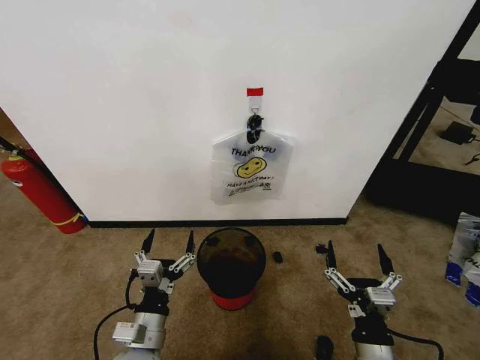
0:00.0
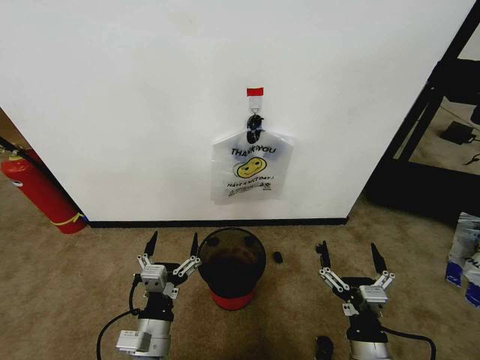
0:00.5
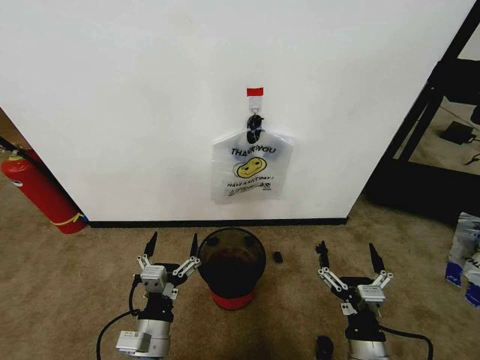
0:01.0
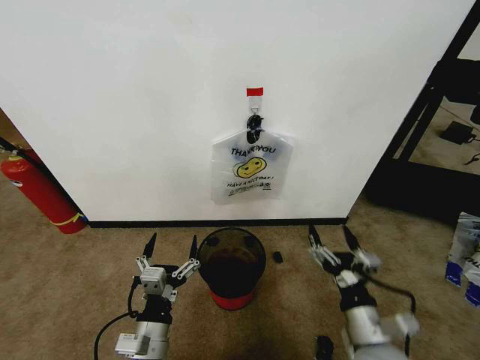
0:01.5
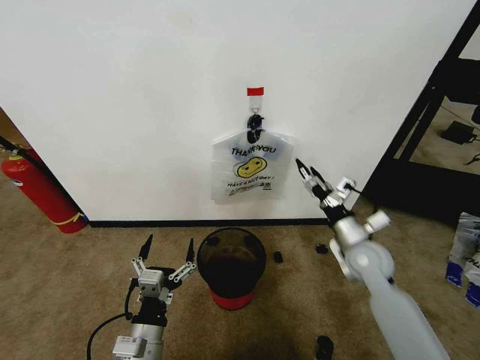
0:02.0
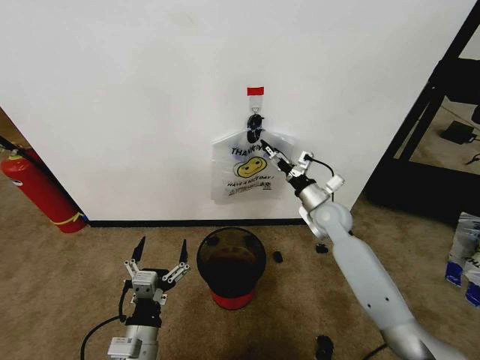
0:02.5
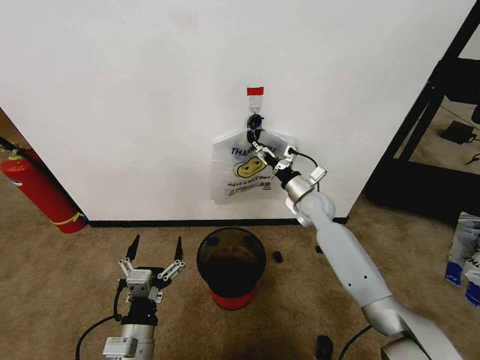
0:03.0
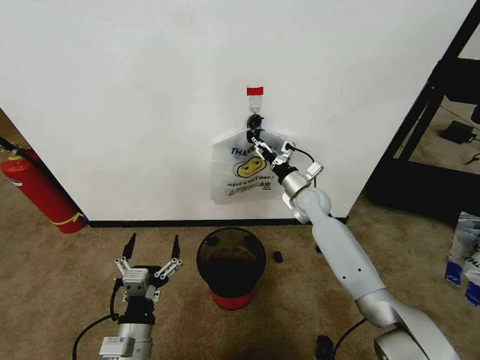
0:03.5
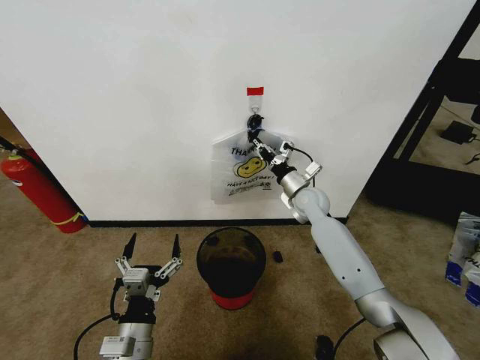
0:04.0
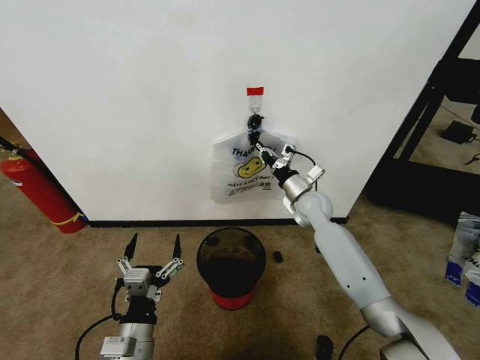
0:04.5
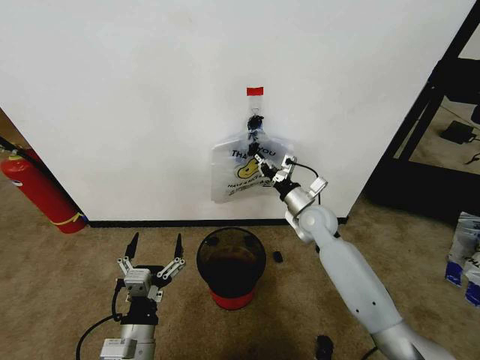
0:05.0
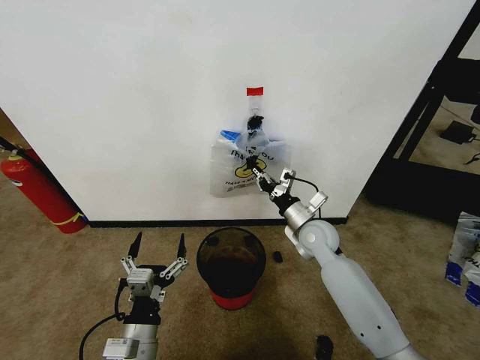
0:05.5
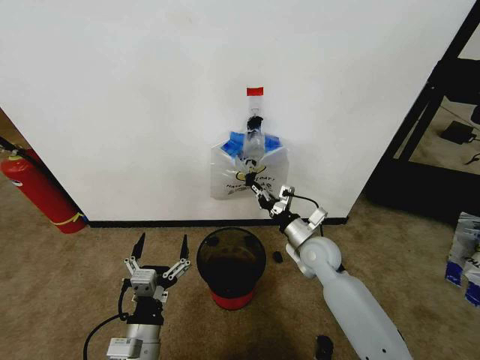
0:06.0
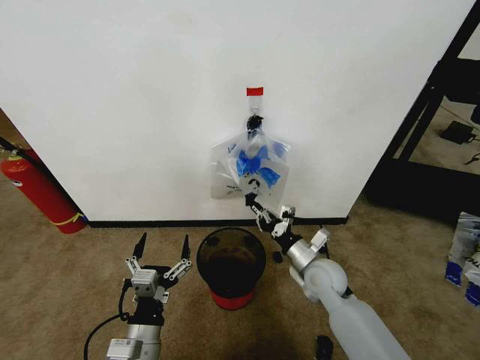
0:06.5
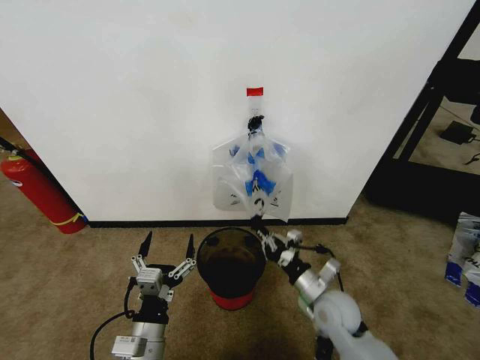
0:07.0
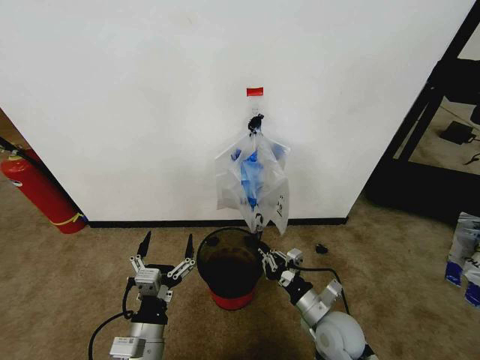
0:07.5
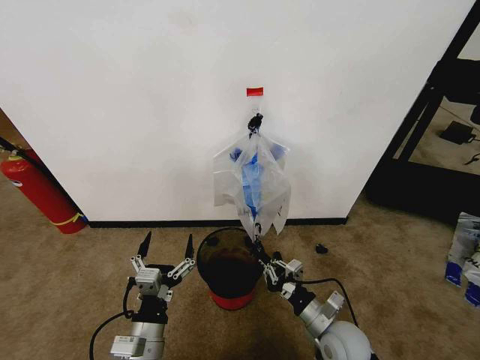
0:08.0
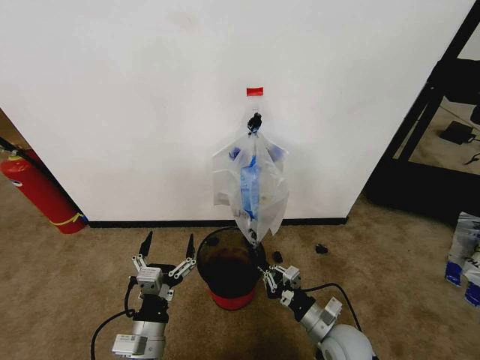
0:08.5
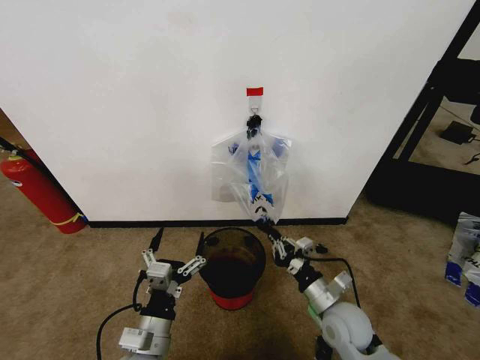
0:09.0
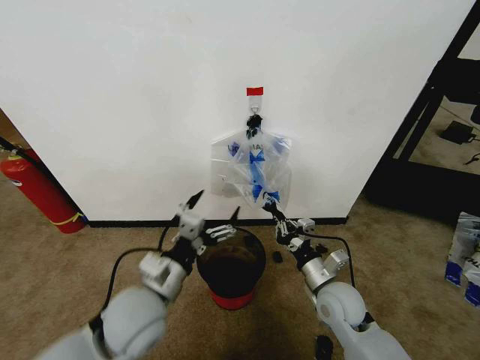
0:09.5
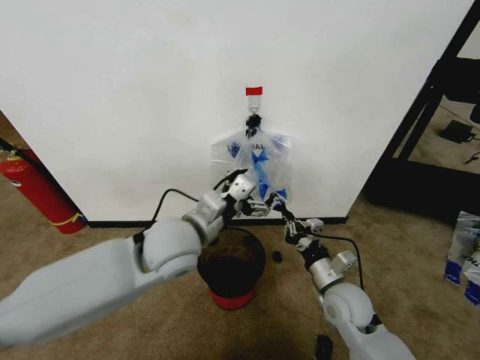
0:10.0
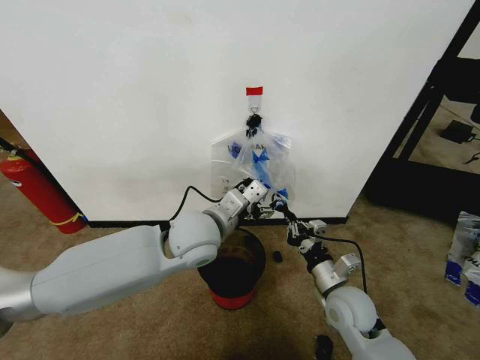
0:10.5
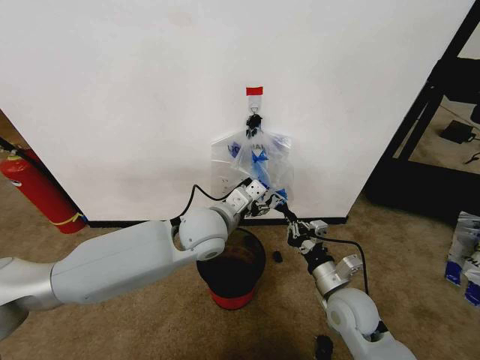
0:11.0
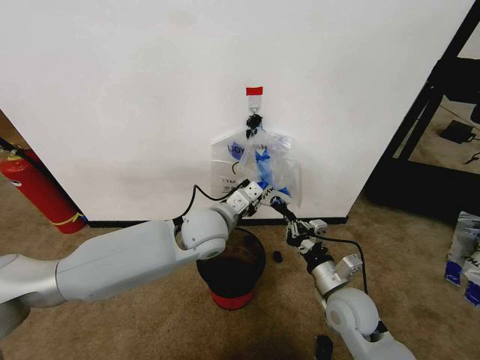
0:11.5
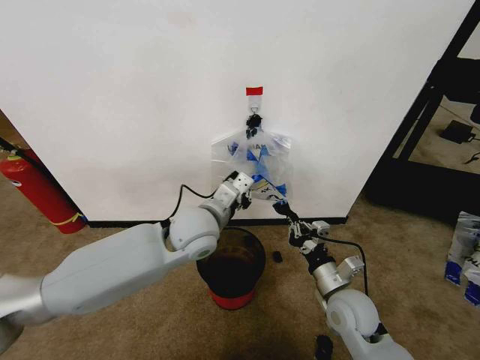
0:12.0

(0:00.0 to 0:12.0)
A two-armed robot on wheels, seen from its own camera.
Task of the whole recording: Pick up the garbage bag from the wall and place it over the trash bin.
0:02.0 - 0:04.0: The right gripper travels forward and to the left by approximately 20 cm, and closes its fingers.
0:04.0 - 0:06.0: The right gripper shifts about 15 cm backward.
0:06.0 - 0:08.0: The right gripper moves backward and downward, some 20 cm.
0:08.0 - 0:10.0: The left gripper is displaced upward and forward by approximately 25 cm. The right gripper is displaced upward and forward by some 10 cm.
0:10.0 - 0:12.0: The left gripper changes place by about 5 cm, and closes up.

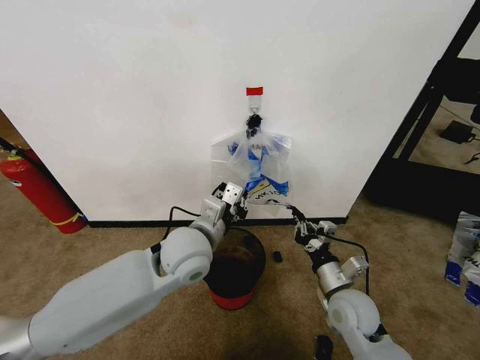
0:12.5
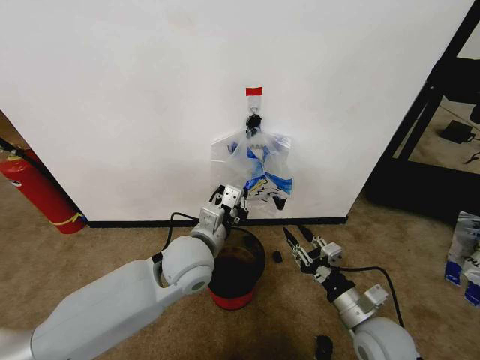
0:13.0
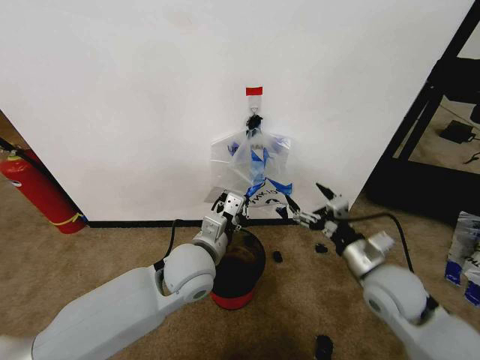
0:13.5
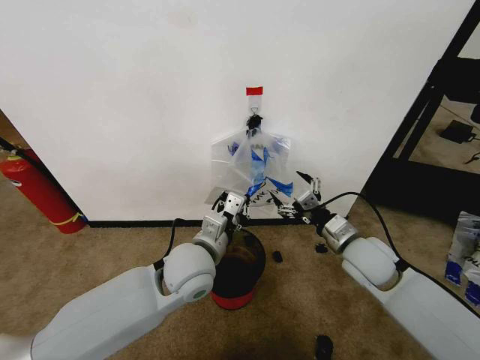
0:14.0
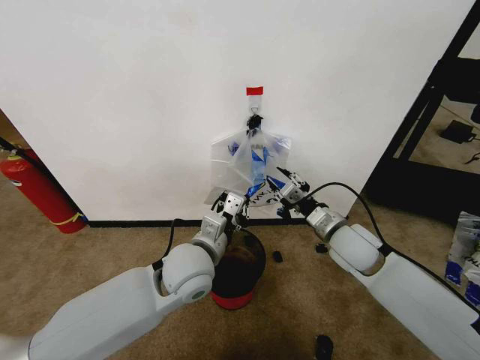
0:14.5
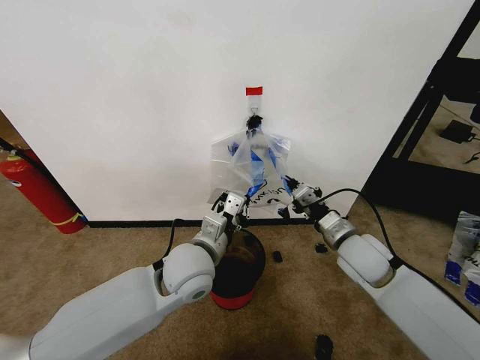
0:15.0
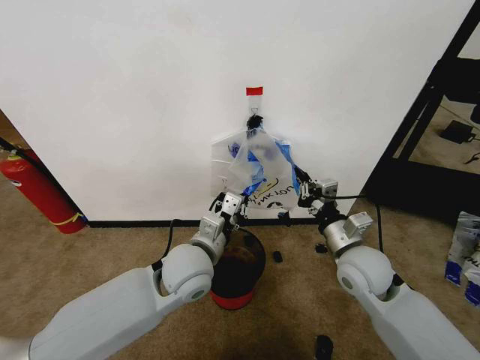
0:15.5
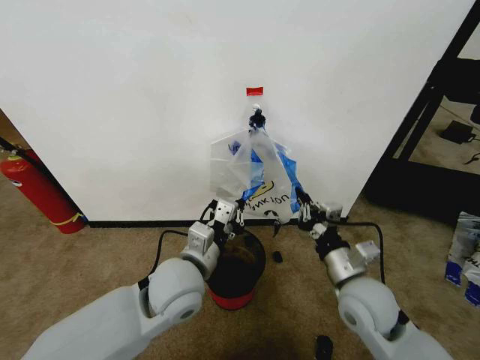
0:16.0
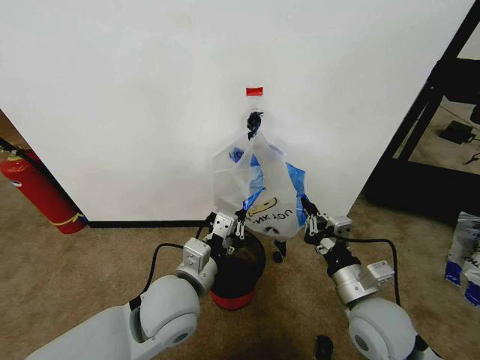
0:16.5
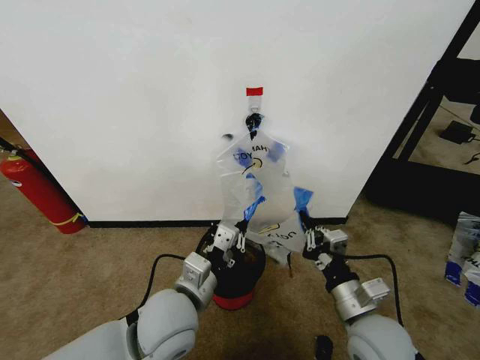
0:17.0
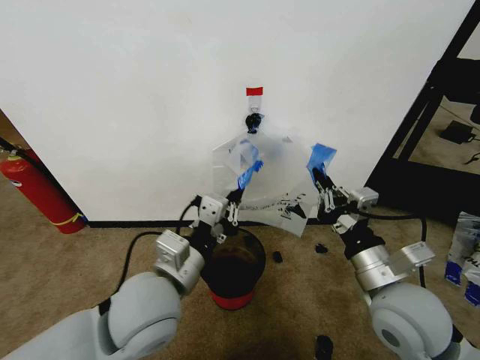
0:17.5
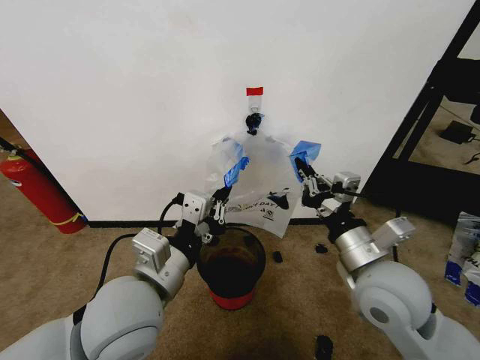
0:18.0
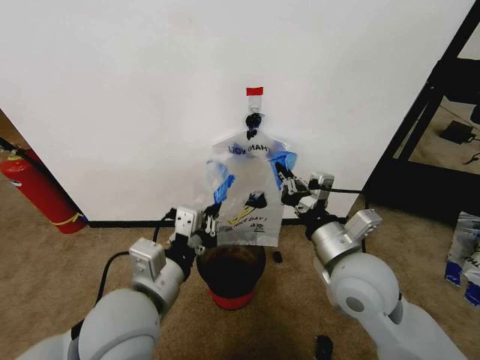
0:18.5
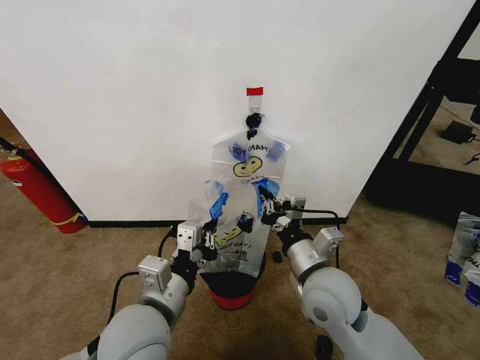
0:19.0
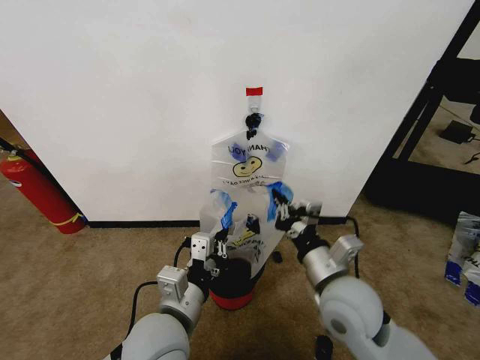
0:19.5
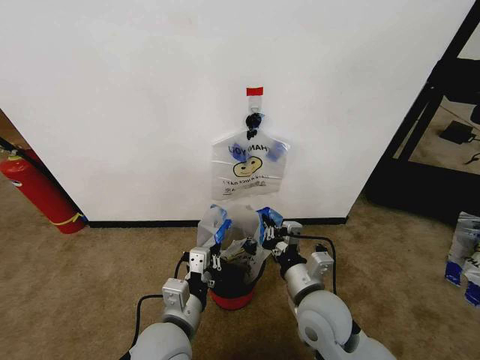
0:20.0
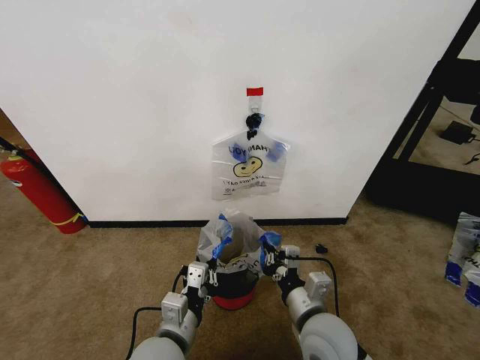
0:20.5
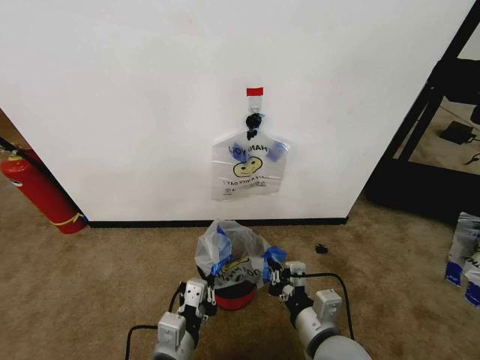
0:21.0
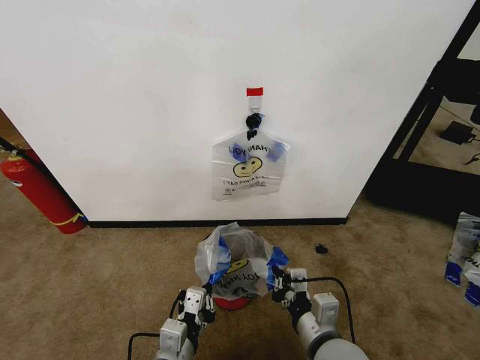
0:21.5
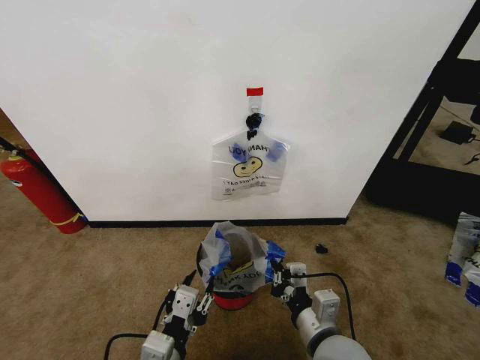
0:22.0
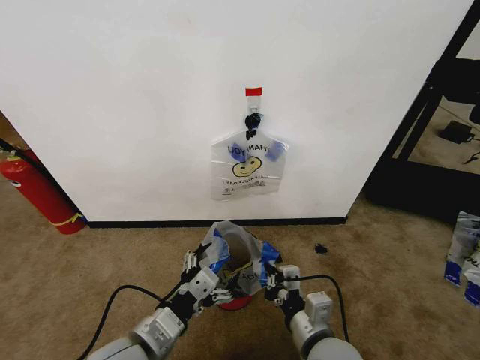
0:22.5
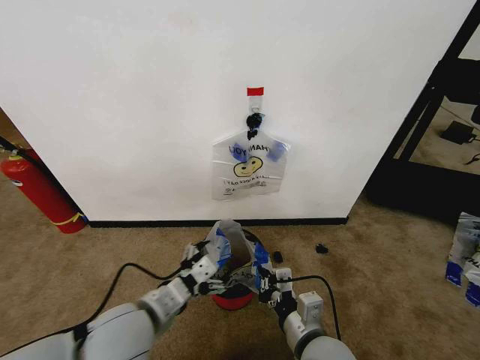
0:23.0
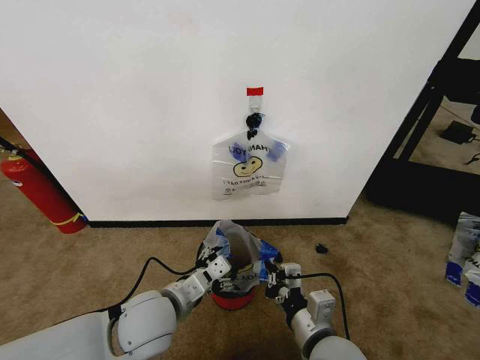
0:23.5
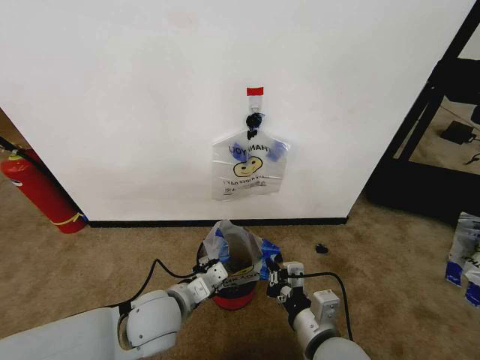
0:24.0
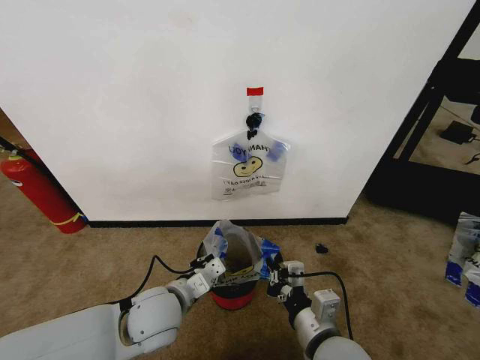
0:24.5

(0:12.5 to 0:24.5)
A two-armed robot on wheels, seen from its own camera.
Task of the whole recording: Pick up the garbage bag from the wall and place it over the trash bin.
0:12.5 - 0:14.5: The right gripper goes some 15 cm forward and upward, and opens its fingers.
0:14.5 - 0:16.5: The right gripper is displaced backward by about 15 cm, and closes its fingers. The left gripper heads backward, covering about 5 cm.
0:16.5 - 0:18.5: Both grippers travel together upward, approximately 5 cm.
0:18.5 - 0:20.5: The grippers both shift downward by roughly 15 cm.
0:20.5 - 0:22.5: The left gripper is displaced upward by approximately 5 cm, and opens.
0:22.5 - 0:24.5: The left gripper goes approximately 10 cm forward, and closes.

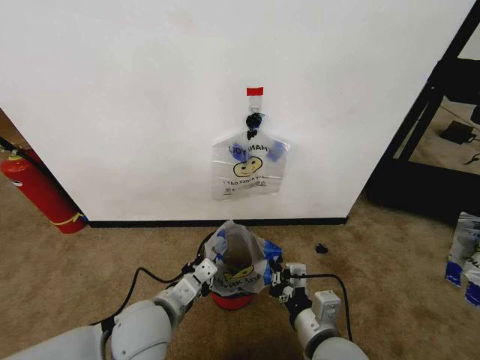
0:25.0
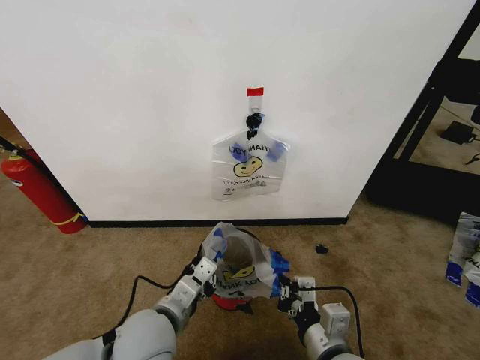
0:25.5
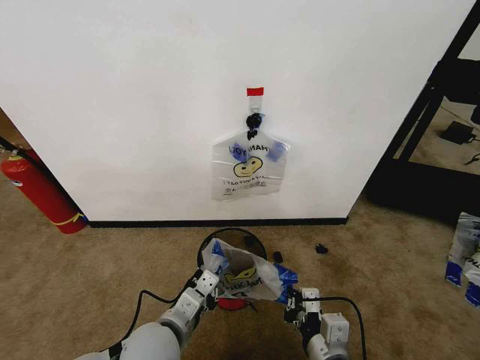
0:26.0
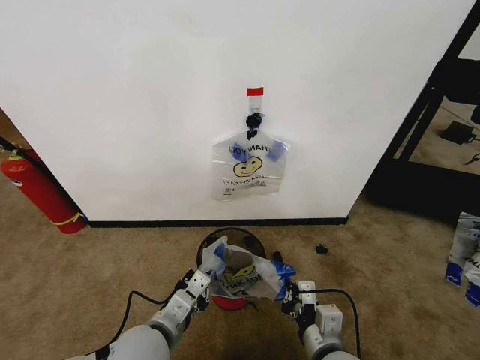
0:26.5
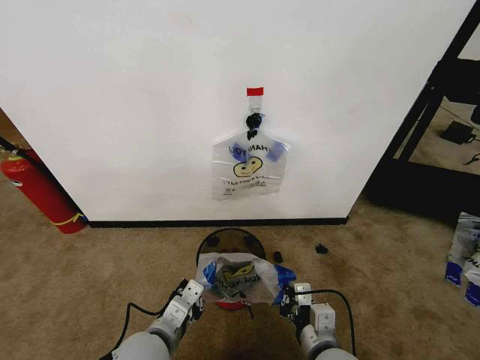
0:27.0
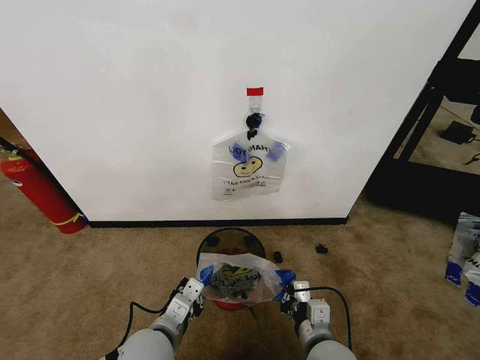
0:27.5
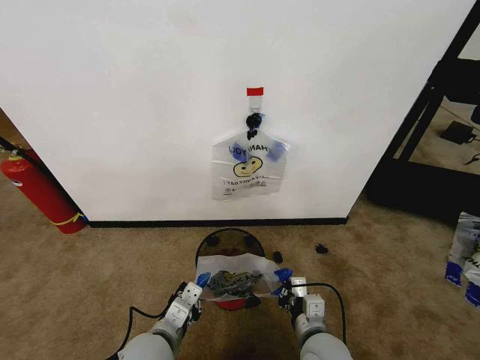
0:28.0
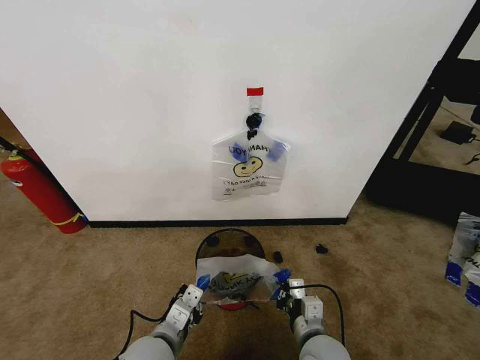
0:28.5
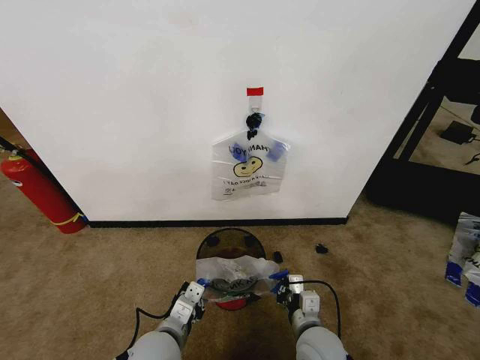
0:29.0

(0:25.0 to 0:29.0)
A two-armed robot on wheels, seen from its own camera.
Task of the whole recording: Pick up the garbage bag from the wall and place it over the trash bin.
0:25.0 - 0:27.0: The left gripper moves approximately 5 cm.
0:27.0 - 0:29.0: The right gripper moves downward, approximately 5 cm.
